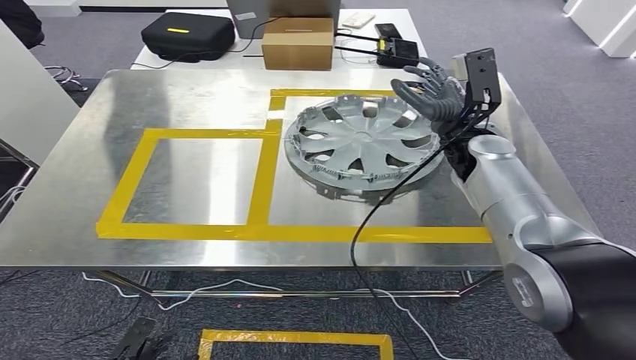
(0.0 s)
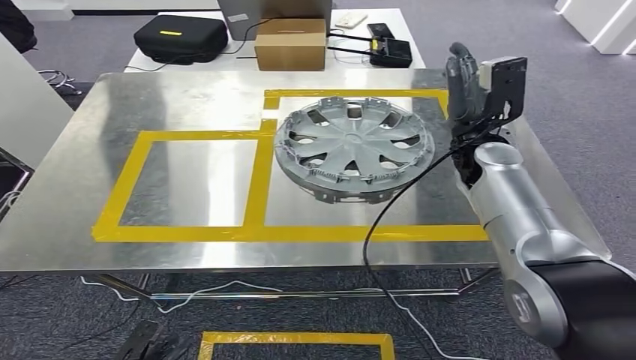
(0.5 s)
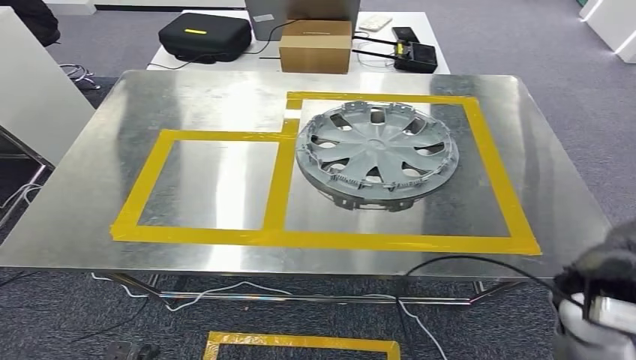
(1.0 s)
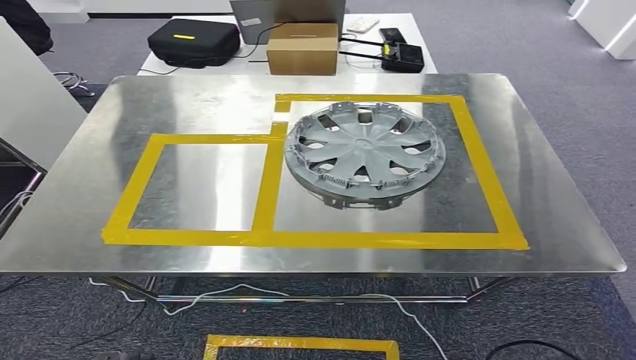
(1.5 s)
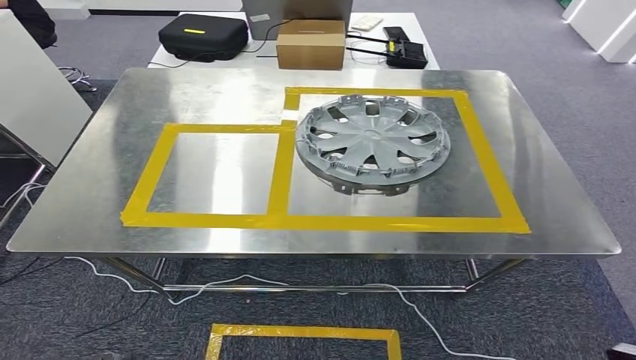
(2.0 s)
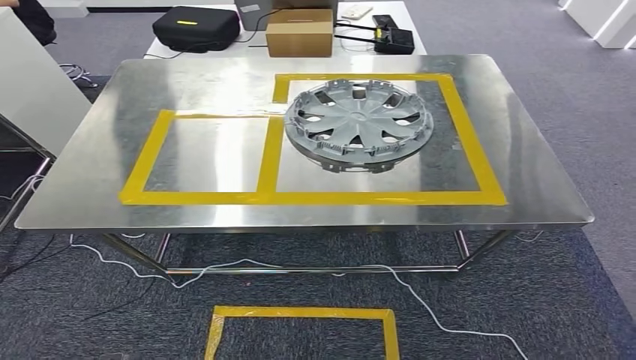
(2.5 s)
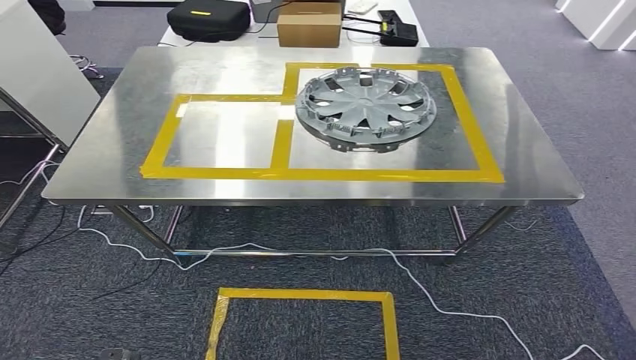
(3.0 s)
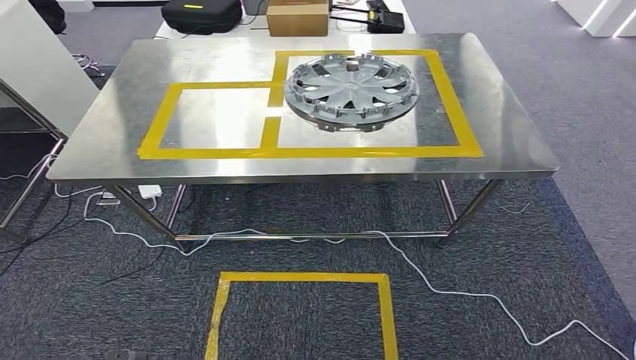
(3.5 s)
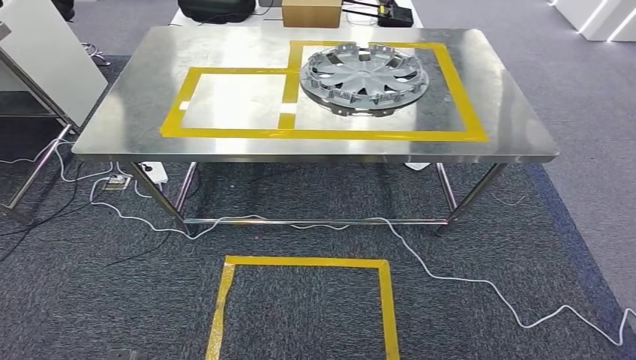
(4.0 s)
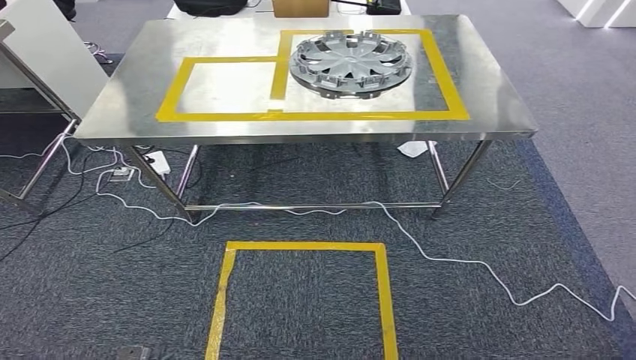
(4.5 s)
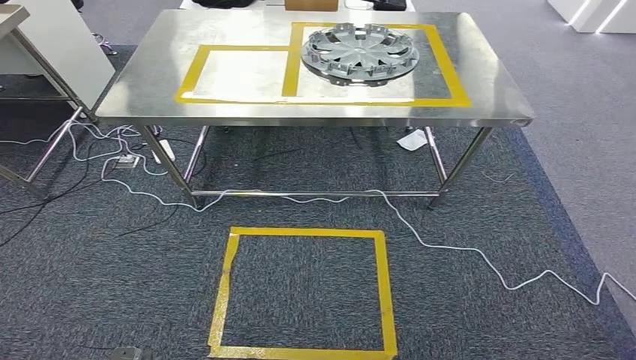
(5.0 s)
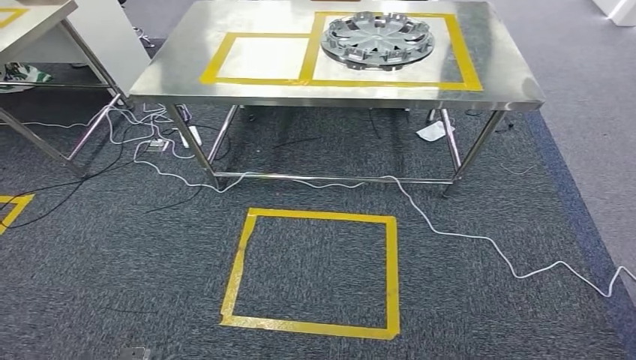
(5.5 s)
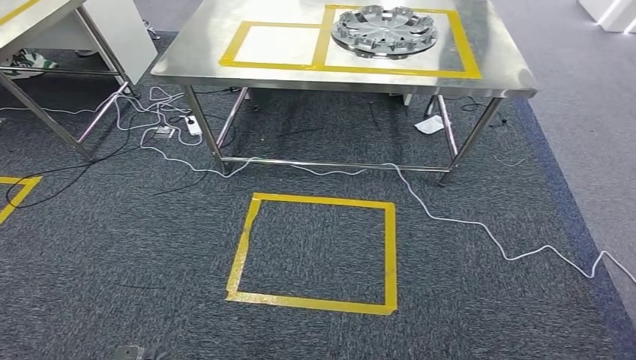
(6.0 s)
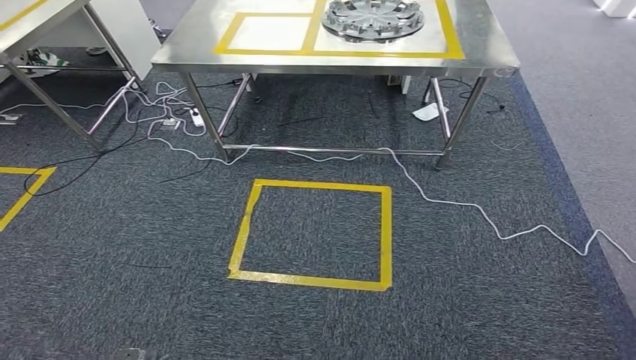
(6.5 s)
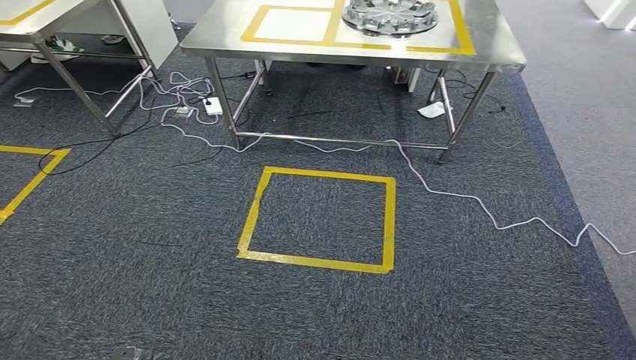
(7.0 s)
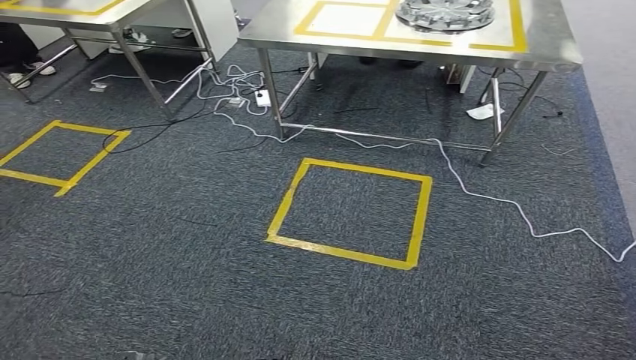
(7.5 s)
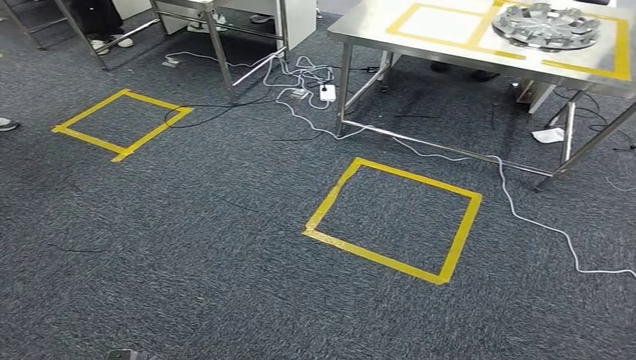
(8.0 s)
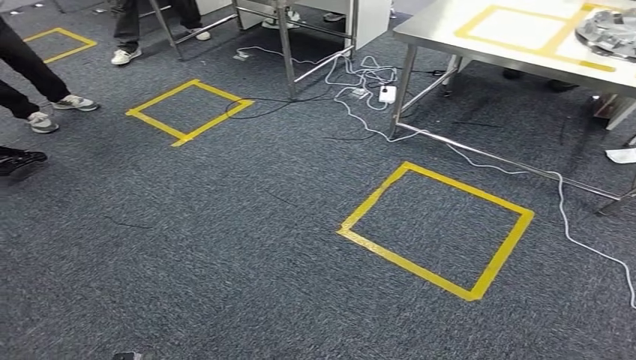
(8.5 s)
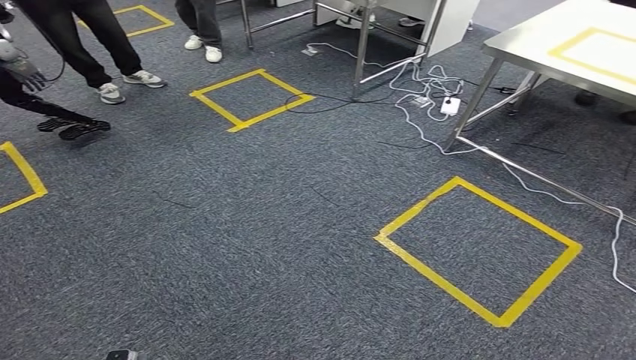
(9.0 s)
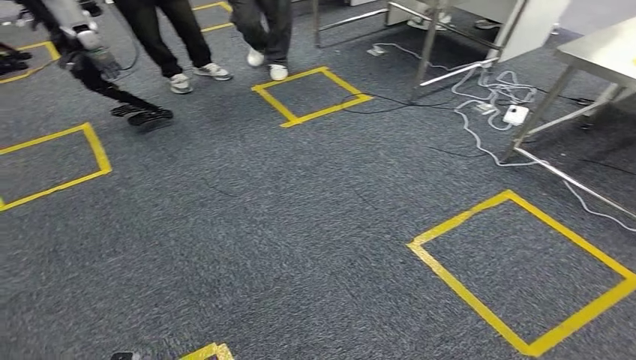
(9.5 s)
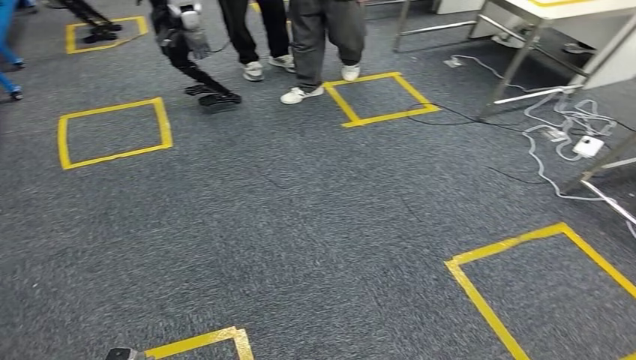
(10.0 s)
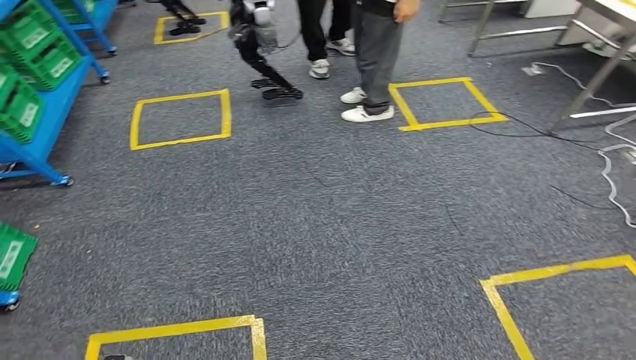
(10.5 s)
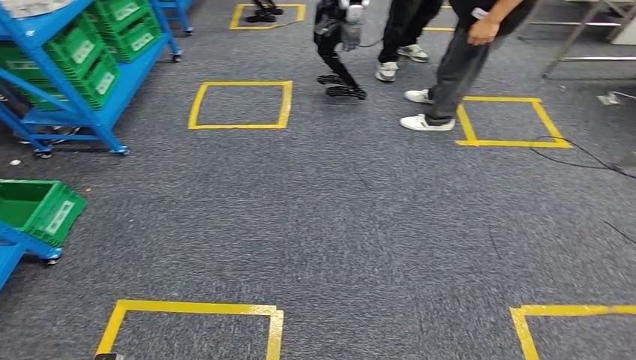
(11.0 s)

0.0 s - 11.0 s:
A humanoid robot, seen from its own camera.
Step, 0.0 s - 2.0 s: Insert the small component into the corresponding slot on the workbench.

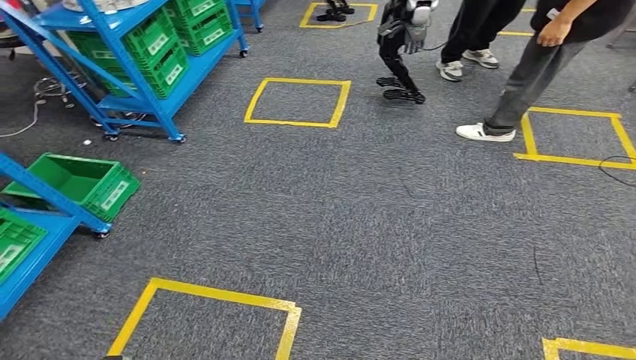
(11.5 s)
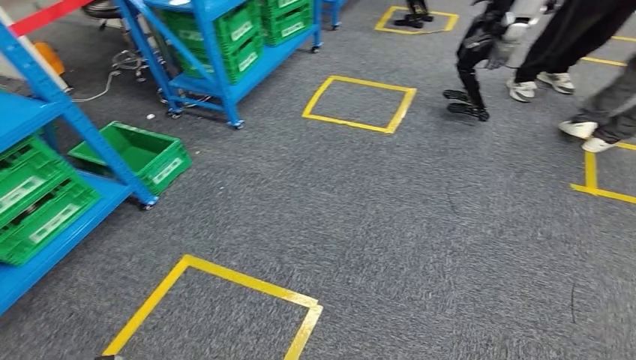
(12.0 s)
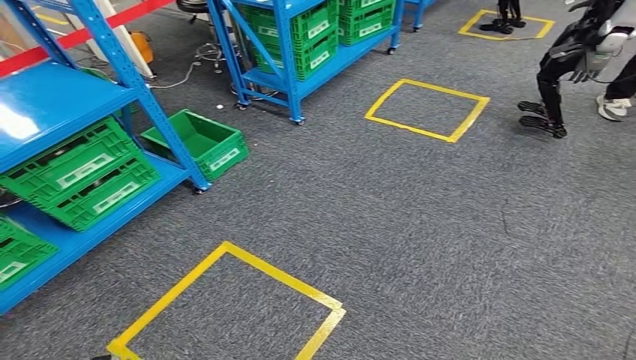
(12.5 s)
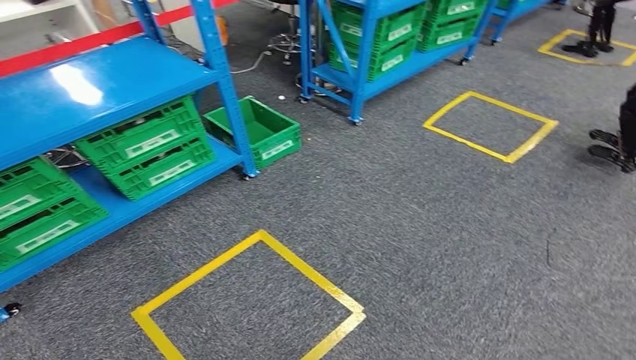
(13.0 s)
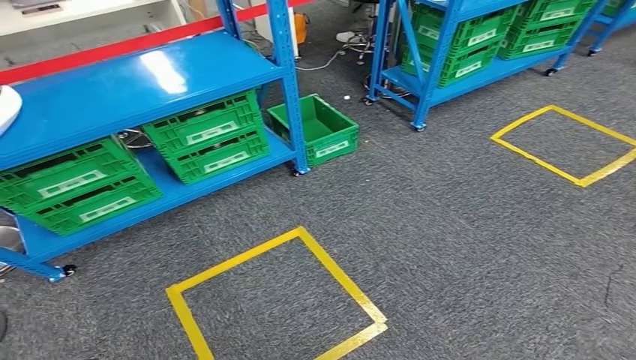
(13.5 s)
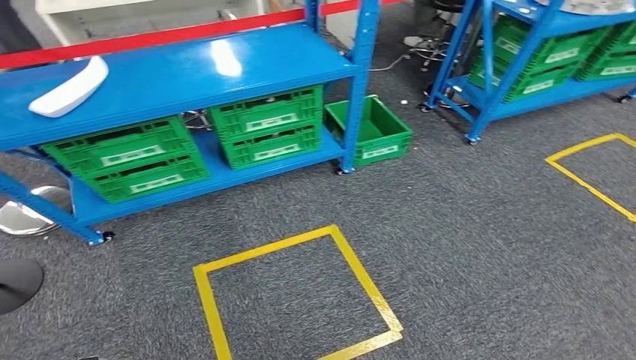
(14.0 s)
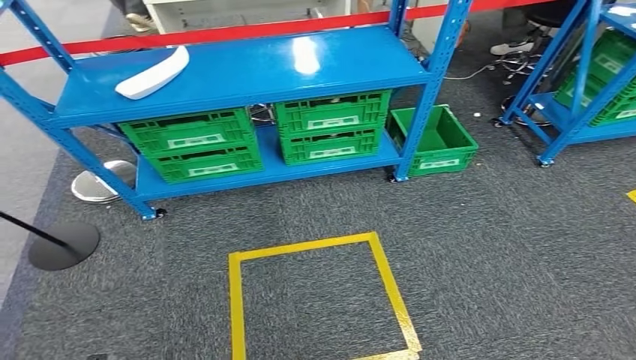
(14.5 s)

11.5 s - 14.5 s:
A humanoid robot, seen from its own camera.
Step, 11.5 s - 14.5 s: Return to the initial position at the workbench.
